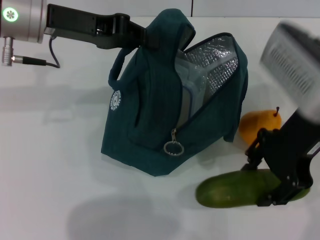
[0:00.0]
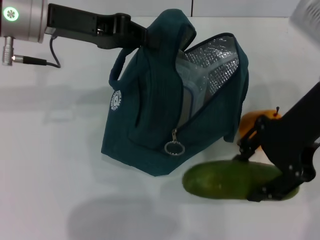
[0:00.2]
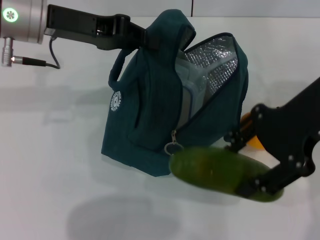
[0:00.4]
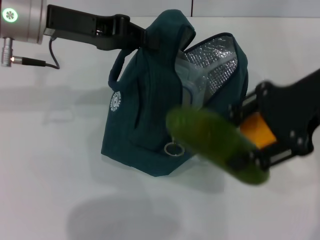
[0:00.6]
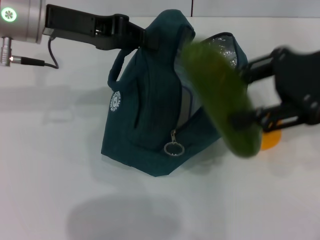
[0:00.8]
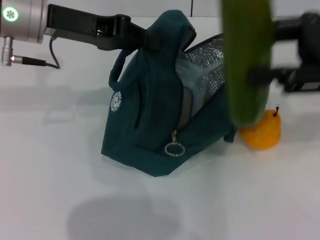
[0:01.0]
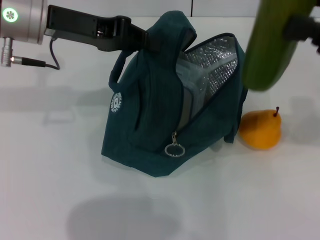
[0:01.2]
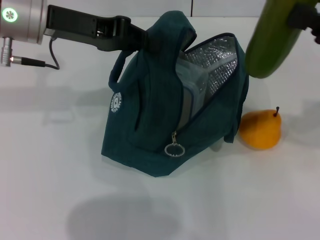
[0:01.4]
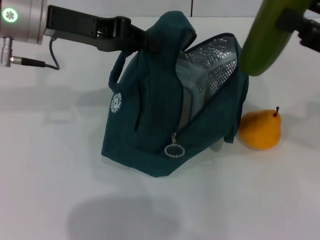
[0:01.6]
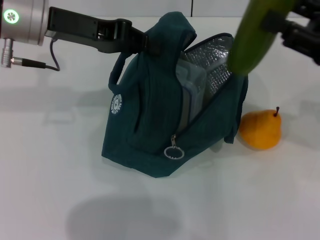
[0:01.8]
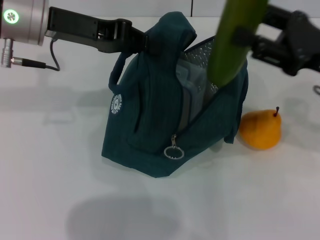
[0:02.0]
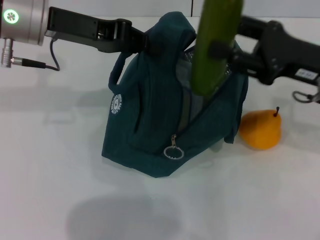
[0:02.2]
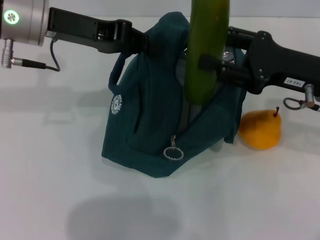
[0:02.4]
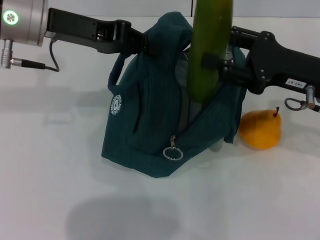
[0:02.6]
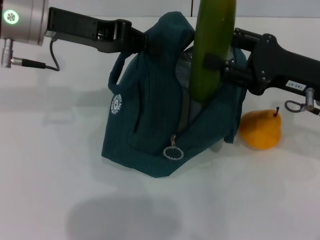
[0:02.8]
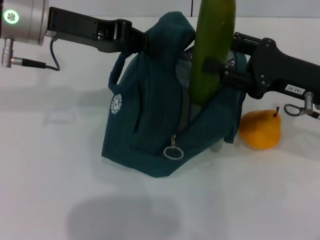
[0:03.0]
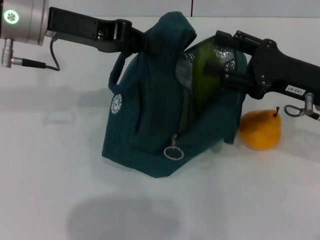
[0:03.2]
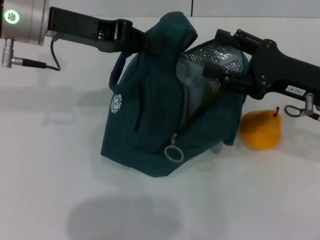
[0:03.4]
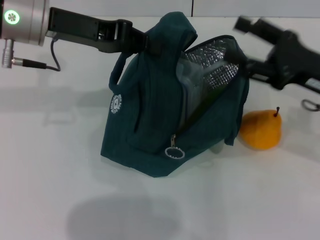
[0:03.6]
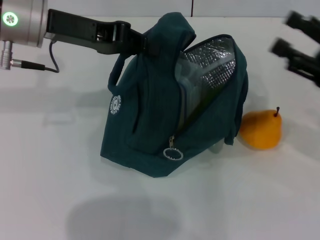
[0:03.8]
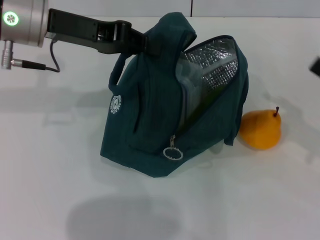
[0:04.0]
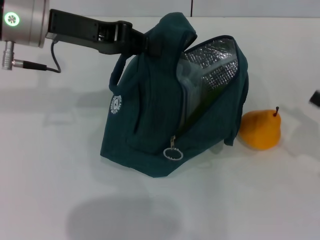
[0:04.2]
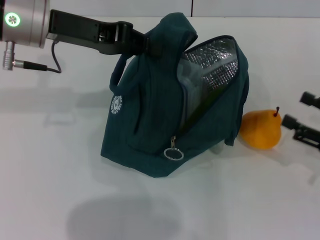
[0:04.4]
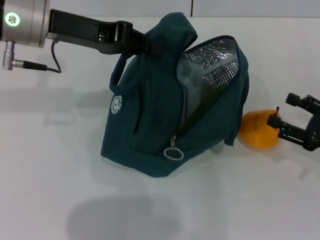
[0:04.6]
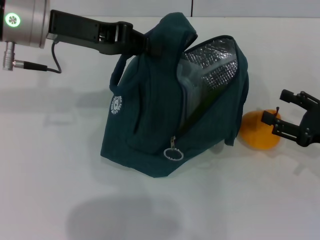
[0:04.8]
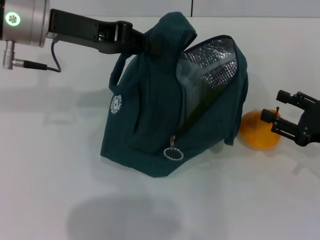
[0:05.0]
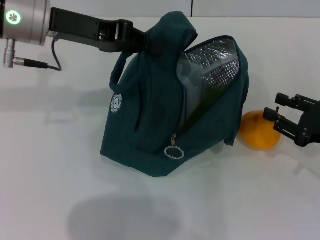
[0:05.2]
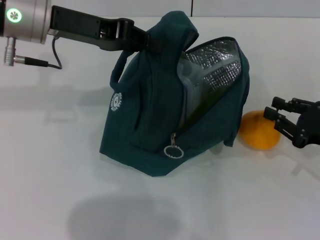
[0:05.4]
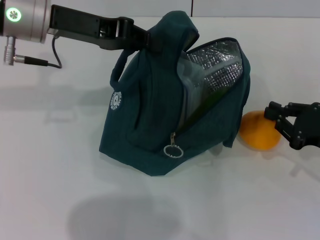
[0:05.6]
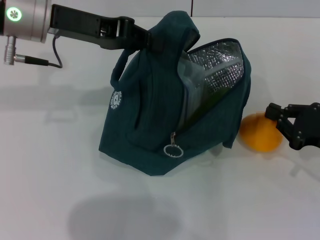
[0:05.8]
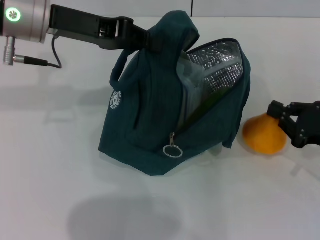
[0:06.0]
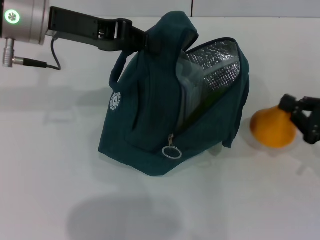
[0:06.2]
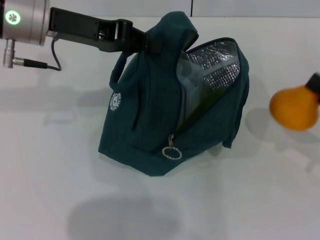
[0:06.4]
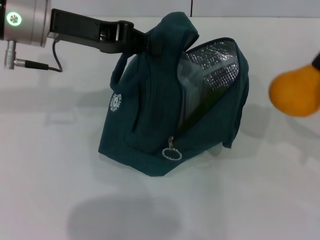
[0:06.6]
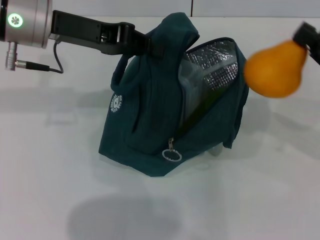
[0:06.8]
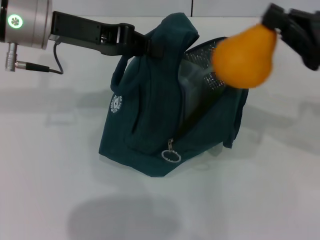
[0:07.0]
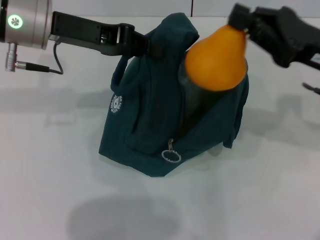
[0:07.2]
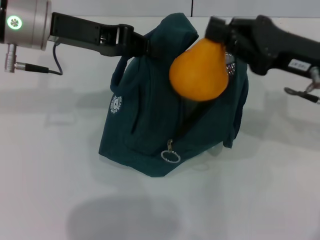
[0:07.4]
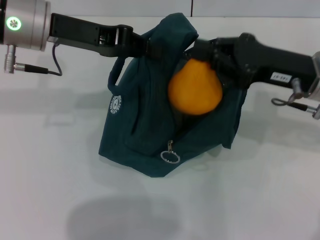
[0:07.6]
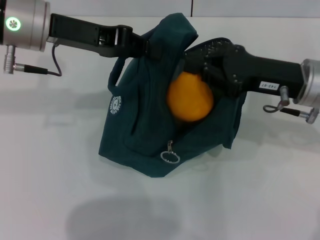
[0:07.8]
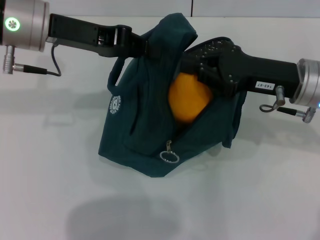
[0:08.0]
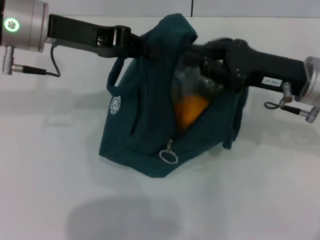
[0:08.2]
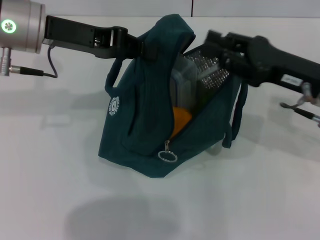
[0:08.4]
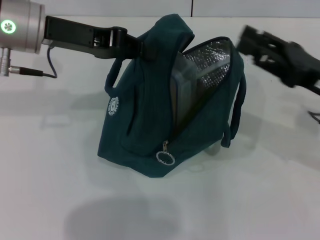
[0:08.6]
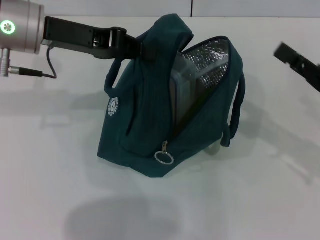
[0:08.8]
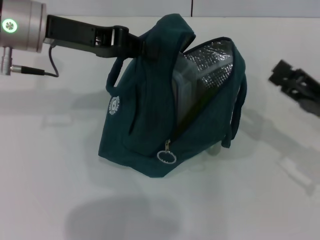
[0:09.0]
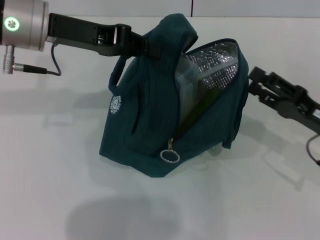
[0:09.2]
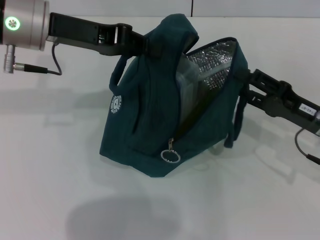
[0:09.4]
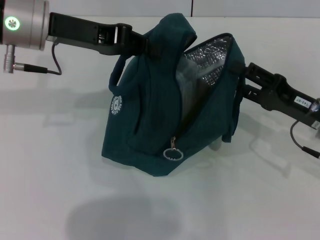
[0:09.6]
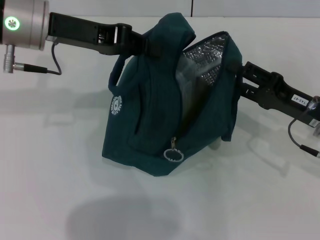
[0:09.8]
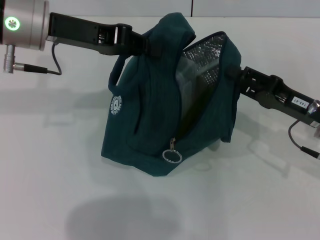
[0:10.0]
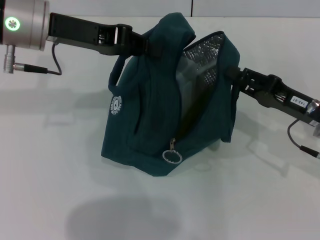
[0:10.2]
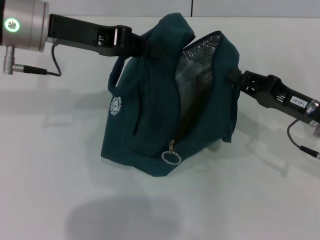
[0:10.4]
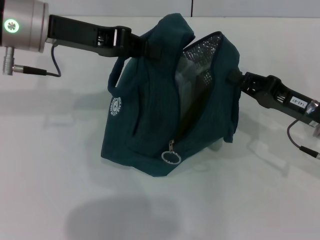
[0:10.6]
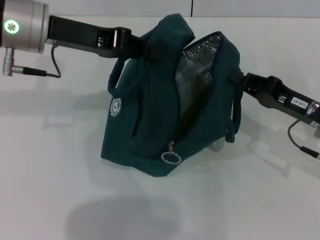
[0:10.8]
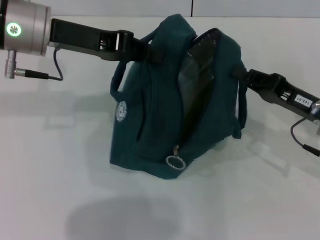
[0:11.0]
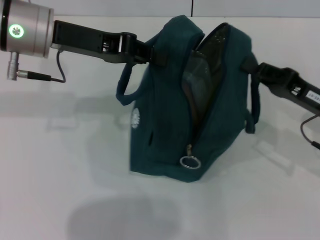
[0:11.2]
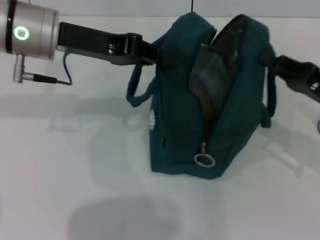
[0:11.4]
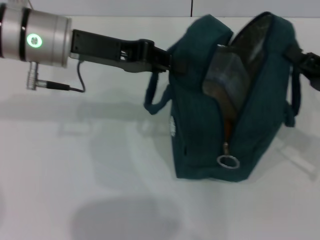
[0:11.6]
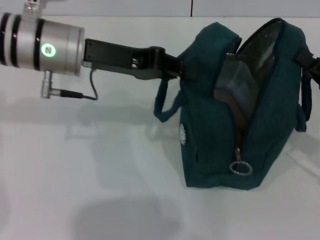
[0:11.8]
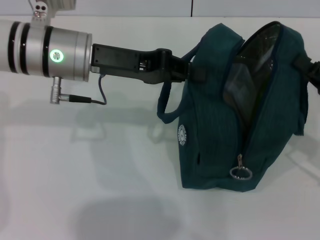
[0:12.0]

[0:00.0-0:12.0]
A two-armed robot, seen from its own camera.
Step, 0:00.0 to 0:03.2: Put the cucumber into the lunch bag with your right hand.
Step, 0:03.4 to 0:05.6: Grab the pear with your right hand.
0:00.0 to 0:01.6: The right gripper goes roughly 15 cm to the right.
0:01.6 to 0:03.0: The right gripper goes some 10 cm to the left and downward.
0:03.0 to 0:04.4: The right gripper shifts some 15 cm to the right, backward and downward.
0:04.4 to 0:06.0: The right gripper closes its fingers.
0:06.0 to 0:07.6: The right gripper is displaced to the left, upward and forward by approximately 15 cm.
0:07.6 to 0:09.0: The right gripper shifts some 15 cm to the right, downward and backward, and opens.
0:09.0 to 0:10.4: The right gripper shifts by approximately 5 cm, and closes up.
0:10.4 to 0:12.0: The left gripper ends up approximately 5 cm from where it was; the right gripper shifts roughly 5 cm to the right, and closes its fingers.

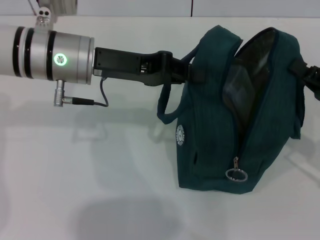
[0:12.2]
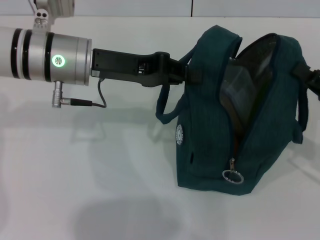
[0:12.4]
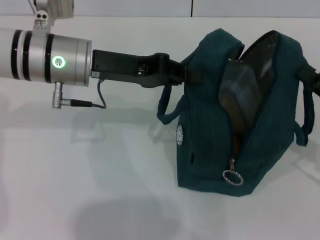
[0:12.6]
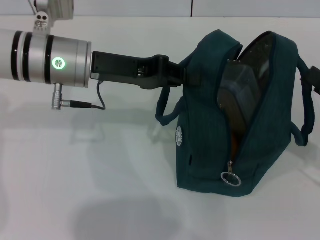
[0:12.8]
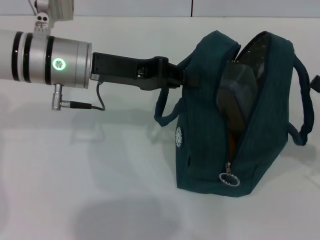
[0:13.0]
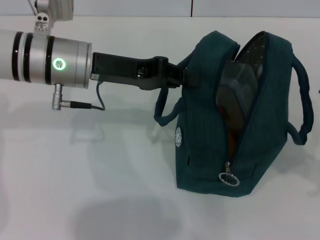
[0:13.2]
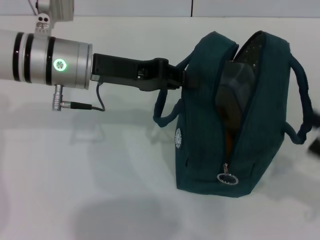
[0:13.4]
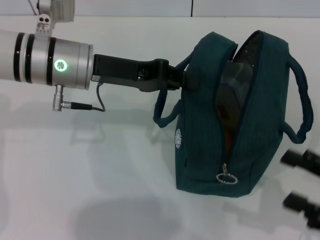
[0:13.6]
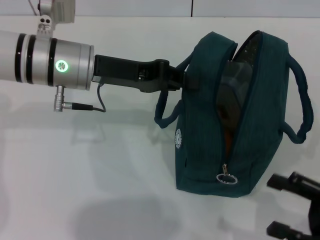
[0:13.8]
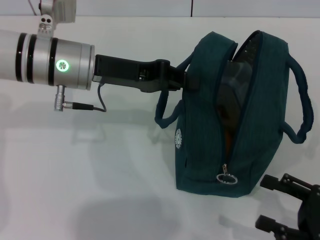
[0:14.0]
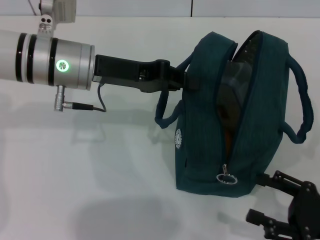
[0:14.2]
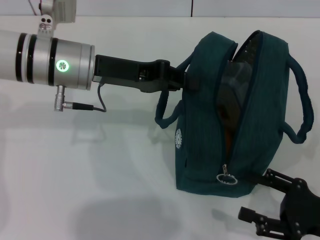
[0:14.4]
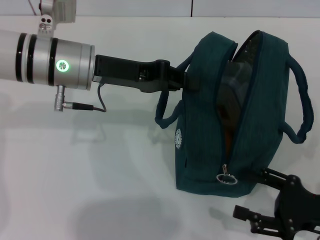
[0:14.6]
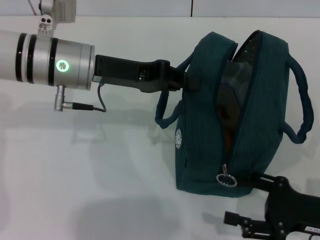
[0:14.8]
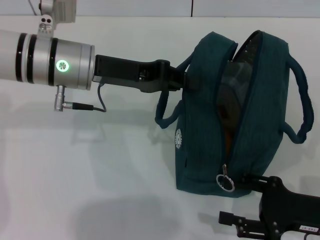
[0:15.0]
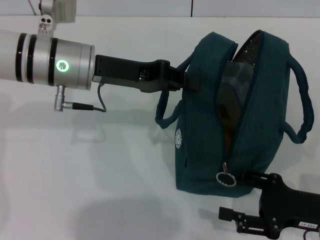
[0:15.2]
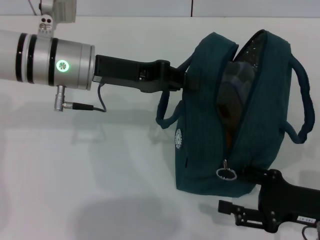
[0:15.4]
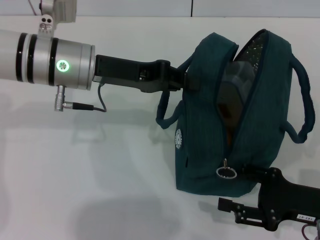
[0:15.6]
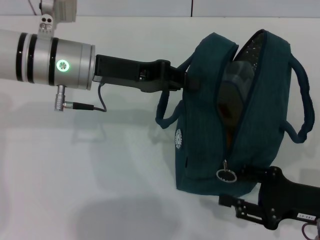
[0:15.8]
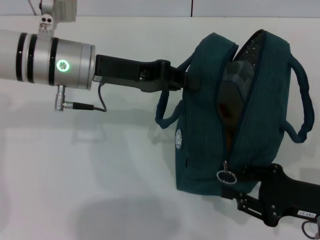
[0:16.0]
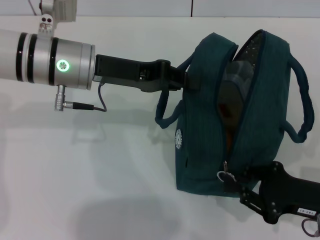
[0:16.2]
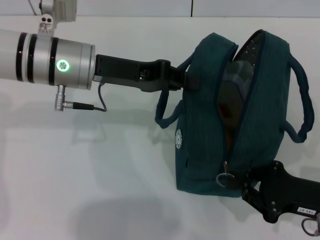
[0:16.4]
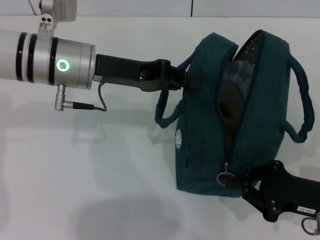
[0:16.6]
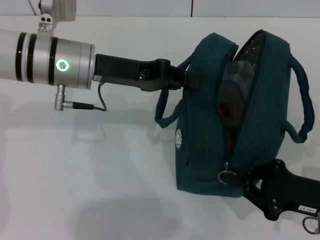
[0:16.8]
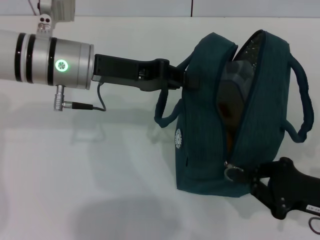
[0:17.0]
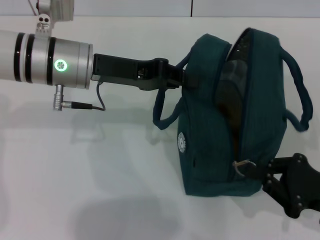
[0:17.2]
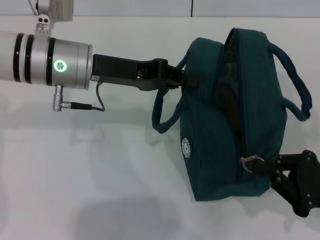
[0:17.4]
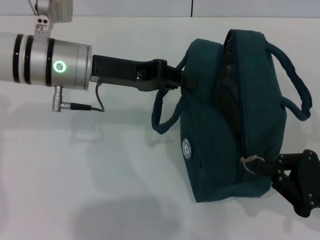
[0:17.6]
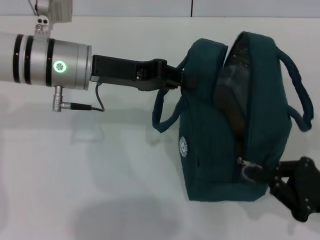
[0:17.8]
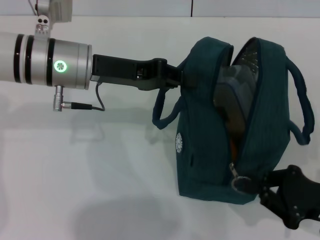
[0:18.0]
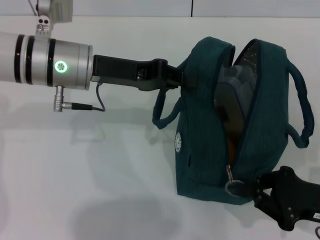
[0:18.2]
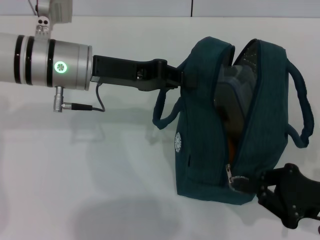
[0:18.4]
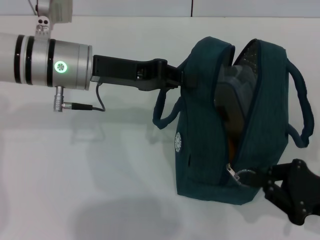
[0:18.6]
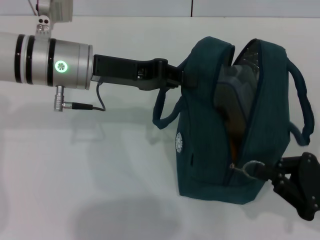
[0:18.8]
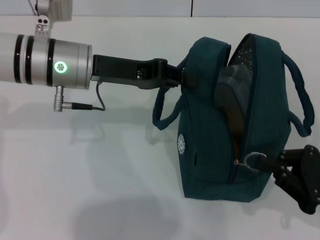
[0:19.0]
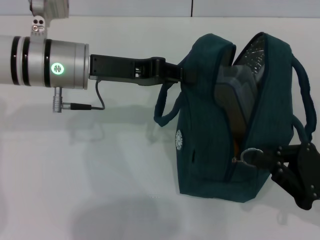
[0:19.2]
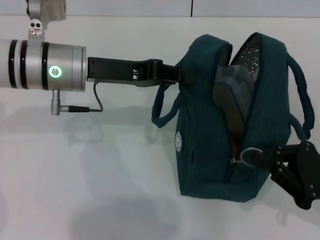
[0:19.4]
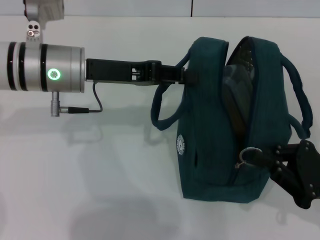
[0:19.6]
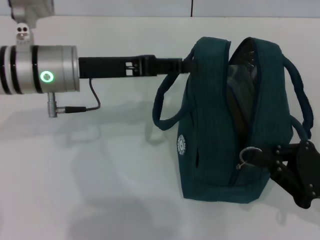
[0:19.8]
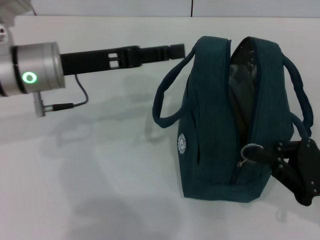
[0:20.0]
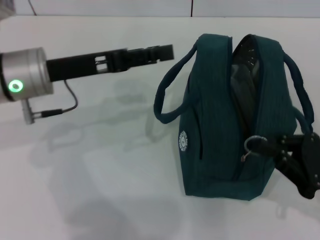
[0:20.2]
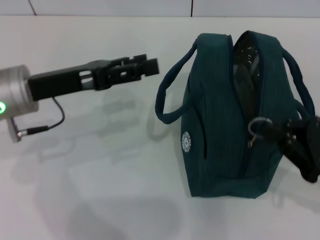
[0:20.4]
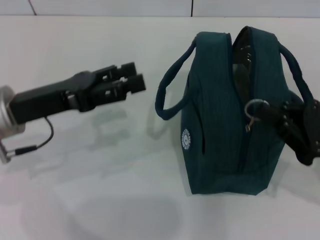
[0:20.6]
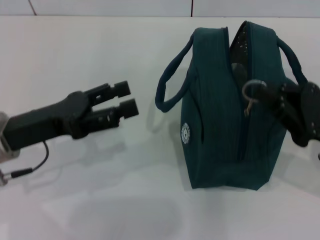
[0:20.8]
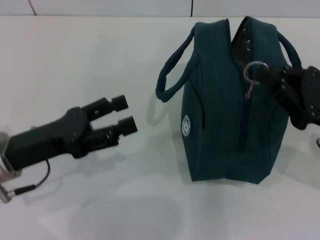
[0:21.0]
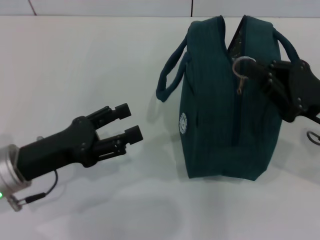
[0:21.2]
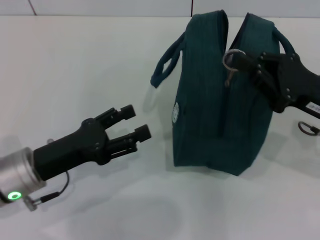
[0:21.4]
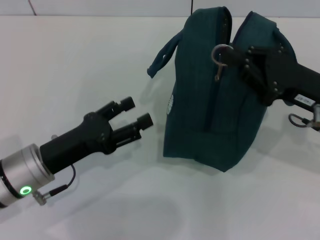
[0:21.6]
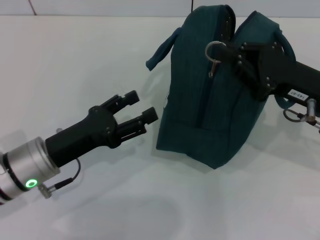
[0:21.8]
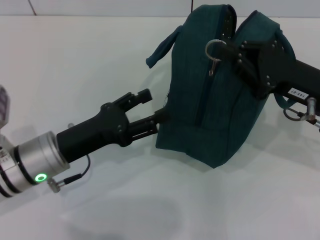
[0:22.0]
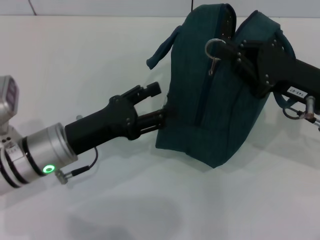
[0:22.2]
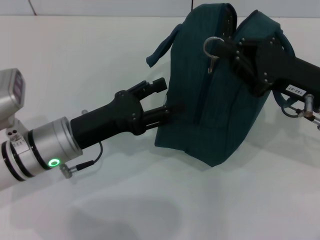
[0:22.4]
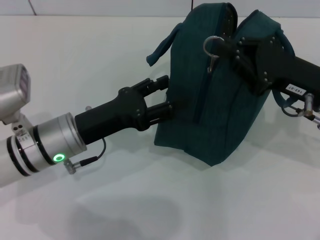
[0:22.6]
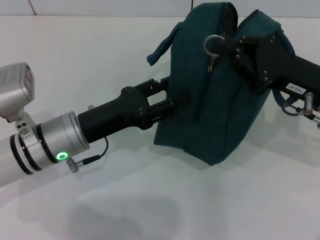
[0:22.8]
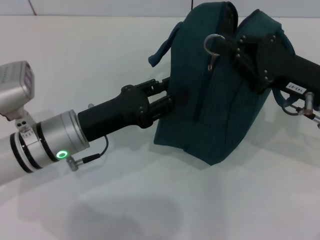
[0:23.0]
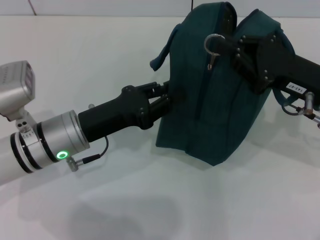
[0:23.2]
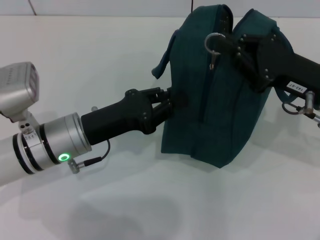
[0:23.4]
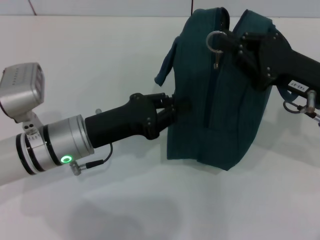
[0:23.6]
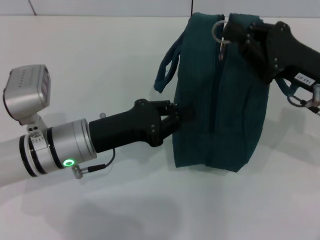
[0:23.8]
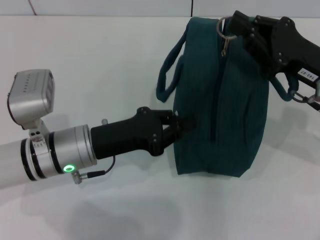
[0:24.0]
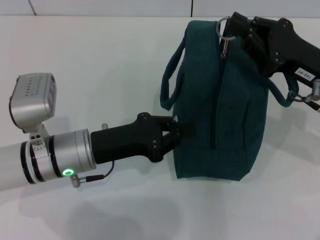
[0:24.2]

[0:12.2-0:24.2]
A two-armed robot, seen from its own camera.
0:12.2 to 0:13.8: The right gripper moves backward, some 10 cm, and opens up.
0:13.8 to 0:15.2: The right gripper changes place by some 5 cm.
0:15.2 to 0:16.6: The right gripper closes up.
0:16.6 to 0:19.8: The grippers make only small movements.
0:19.8 to 0:21.2: The left gripper is displaced backward, downward and to the left by roughly 15 cm, and opens up. Meanwhile the right gripper goes some 5 cm forward.
0:21.2 to 0:22.6: The left gripper moves to the right and forward, some 10 cm.
0:22.6 to 0:24.2: The left gripper closes up.
